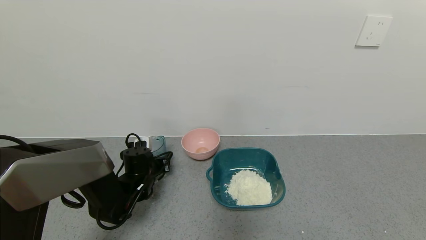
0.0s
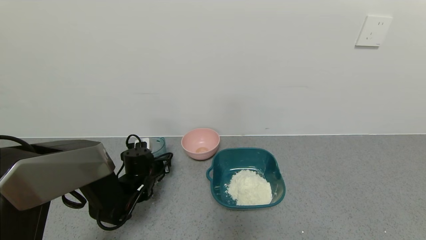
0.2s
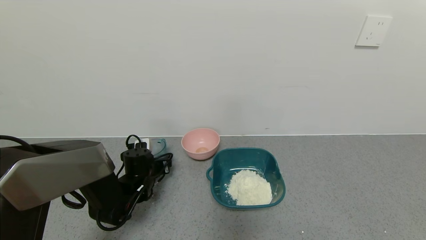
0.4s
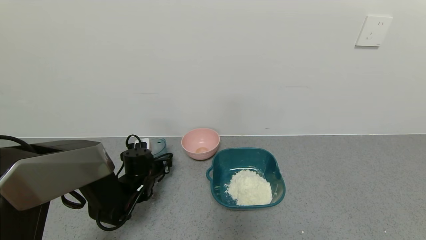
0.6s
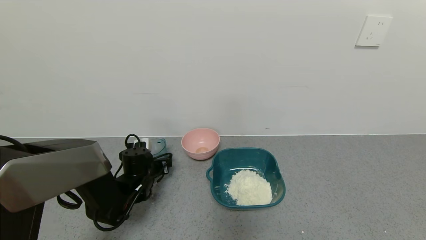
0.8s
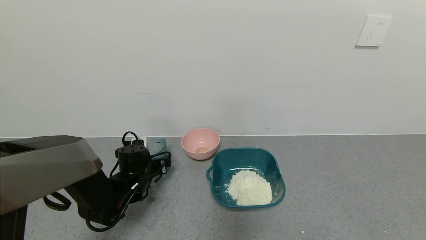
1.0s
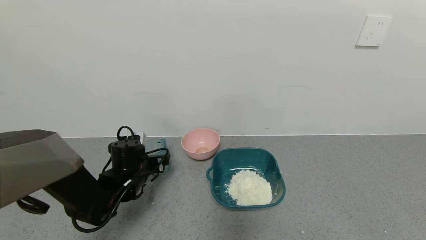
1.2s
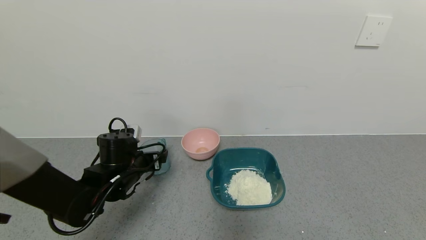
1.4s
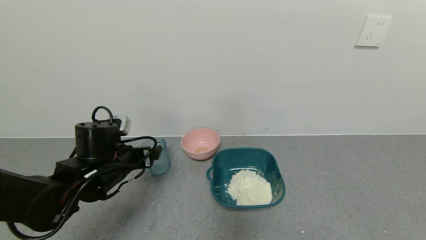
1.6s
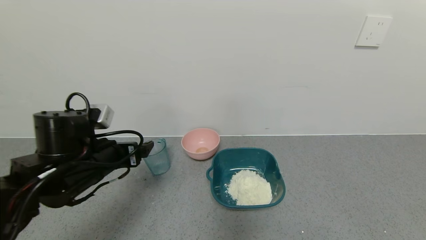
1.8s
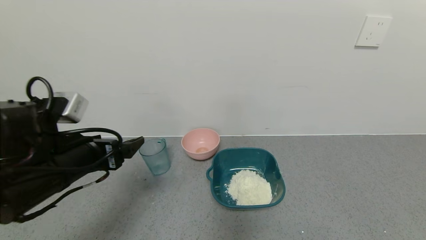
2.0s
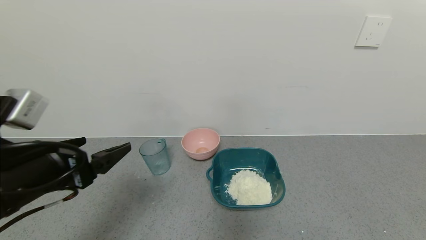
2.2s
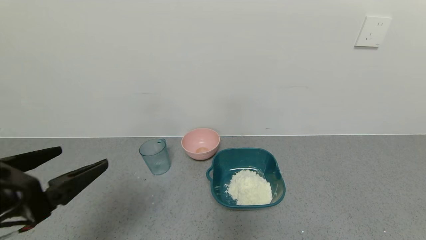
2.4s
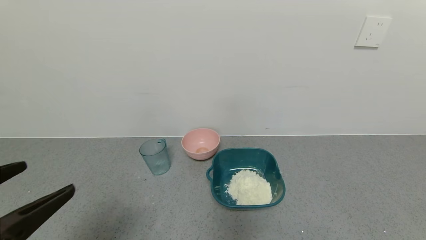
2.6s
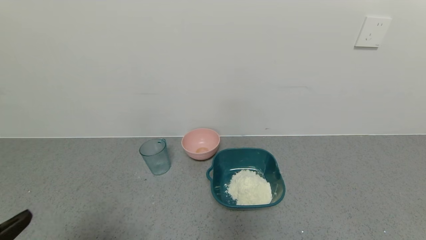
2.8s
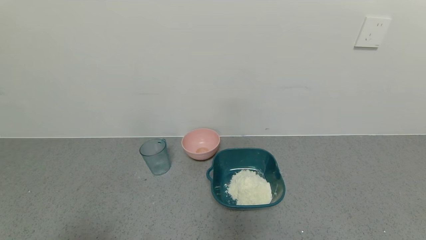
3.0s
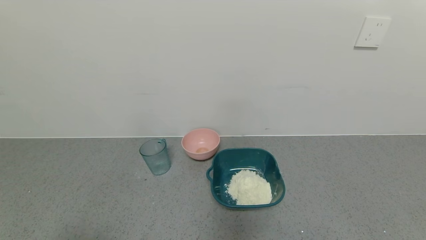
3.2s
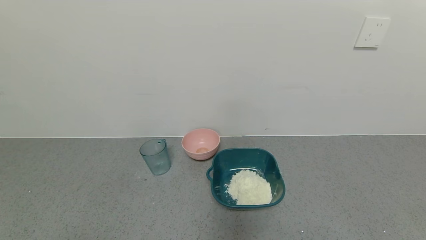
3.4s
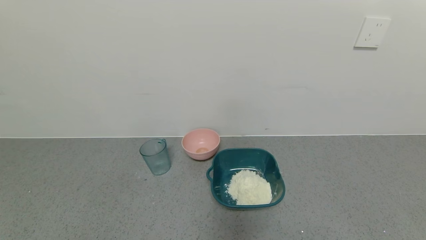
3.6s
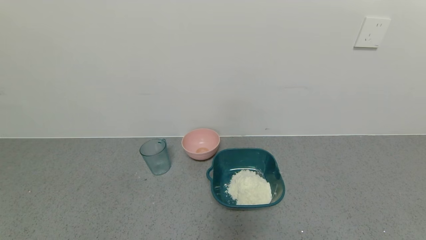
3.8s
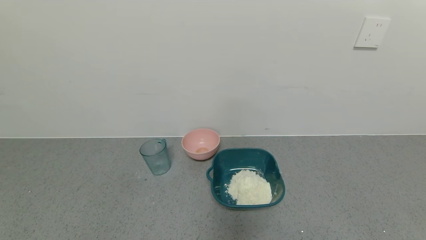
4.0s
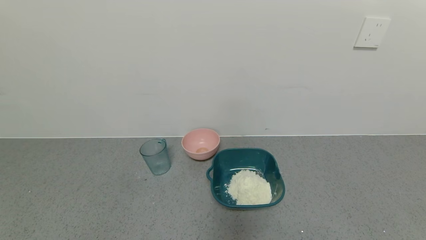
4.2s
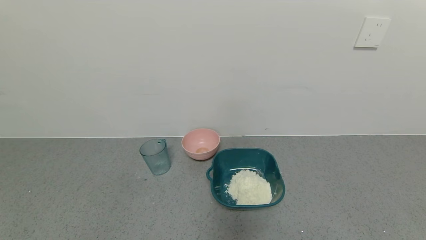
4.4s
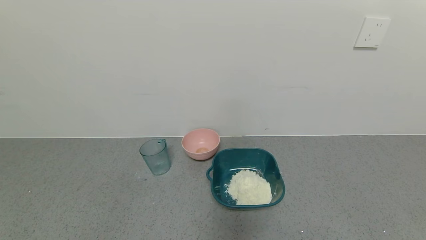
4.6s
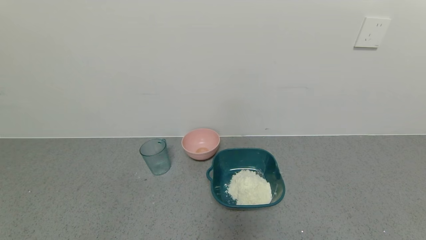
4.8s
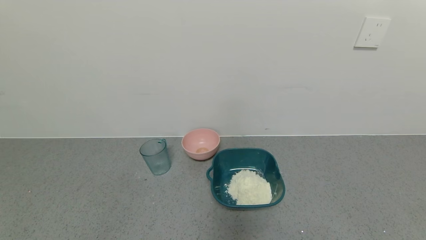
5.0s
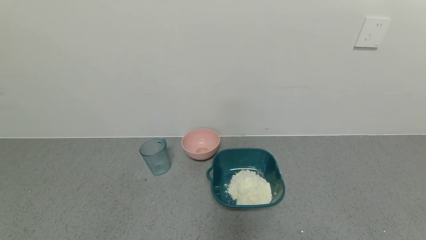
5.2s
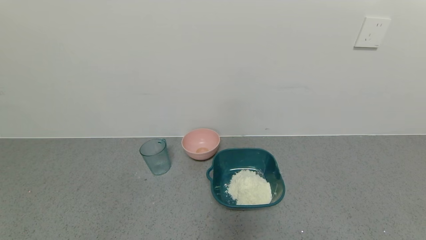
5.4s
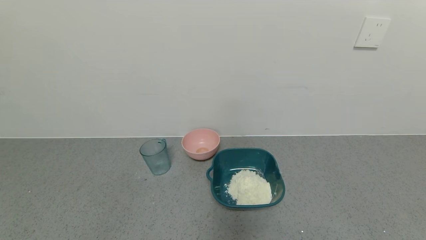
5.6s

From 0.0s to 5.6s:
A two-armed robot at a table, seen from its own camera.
Task of the whole recording: use a gripper to pick up the cup and pour the powder into a bowl or tray.
From 0.0s to 1.4s: The left gripper goes roughly 10 cm upward and backward, and opens.
From 1.4s to 2.8s: The left gripper shifts some 30 cm backward and upward.
From 2.8s to 4.2s: The left gripper goes some 10 cm downward and backward.
